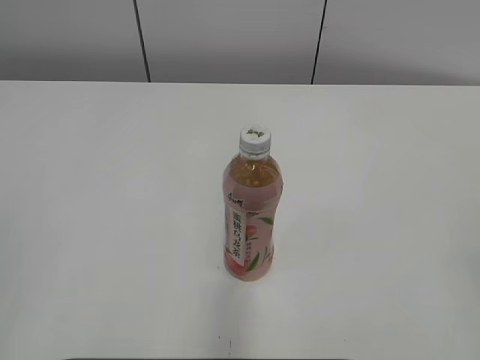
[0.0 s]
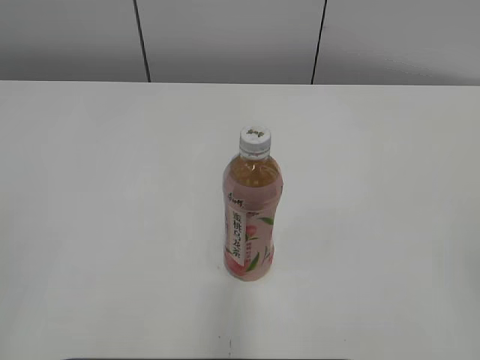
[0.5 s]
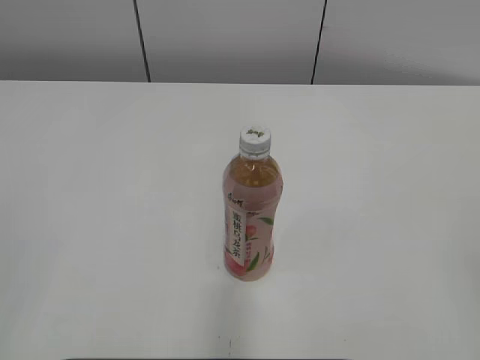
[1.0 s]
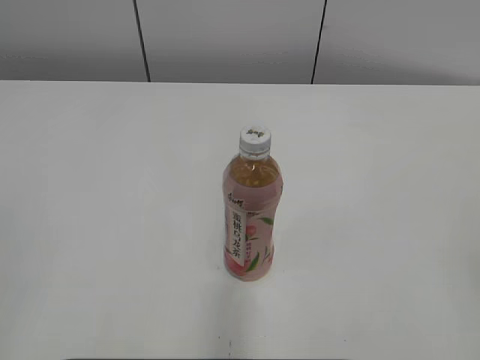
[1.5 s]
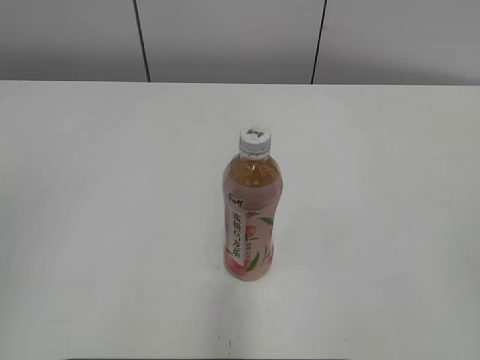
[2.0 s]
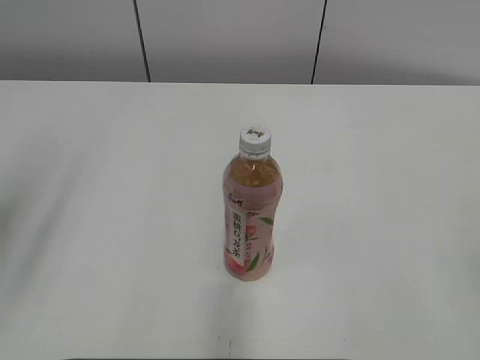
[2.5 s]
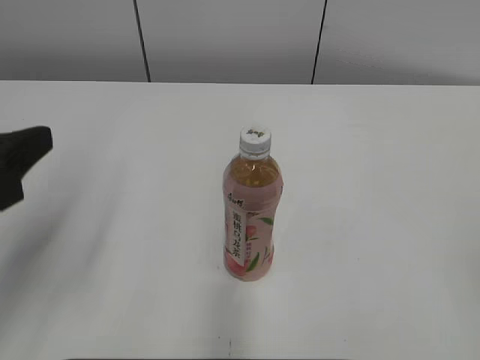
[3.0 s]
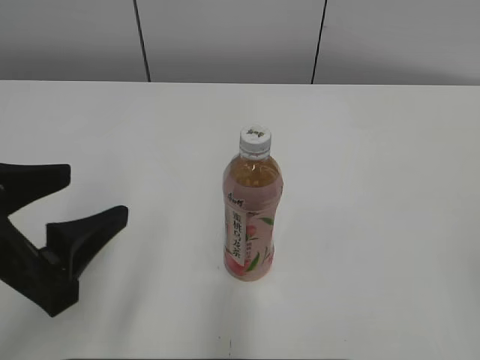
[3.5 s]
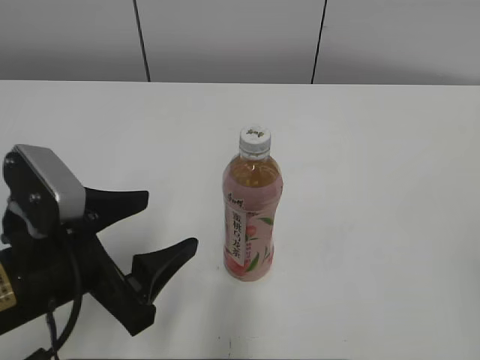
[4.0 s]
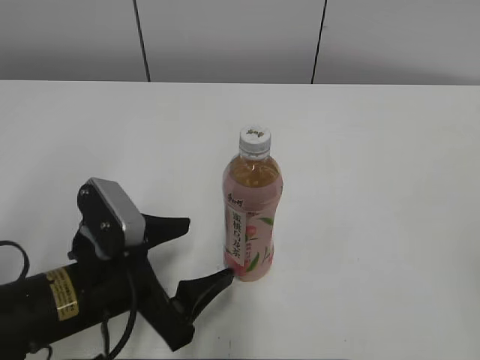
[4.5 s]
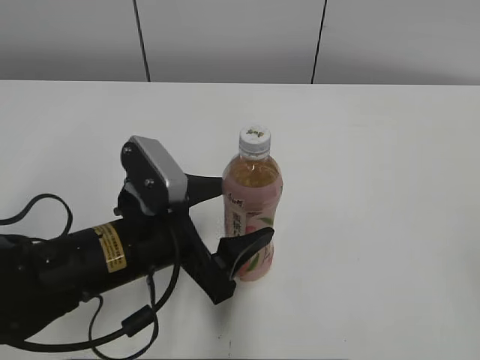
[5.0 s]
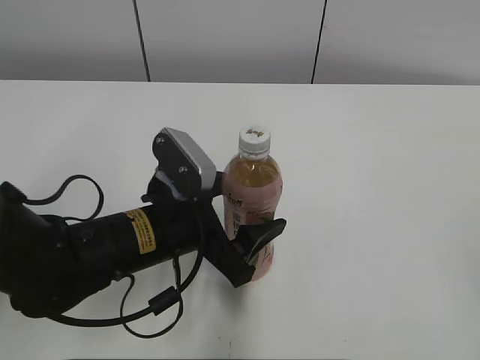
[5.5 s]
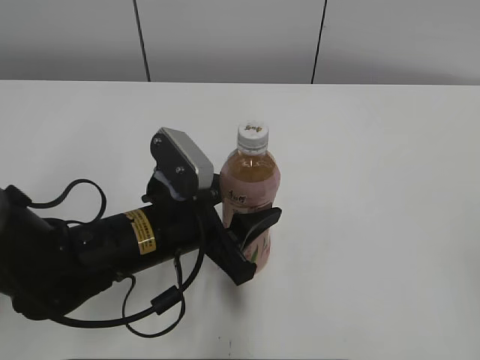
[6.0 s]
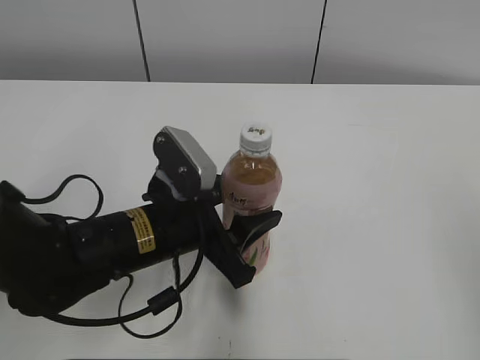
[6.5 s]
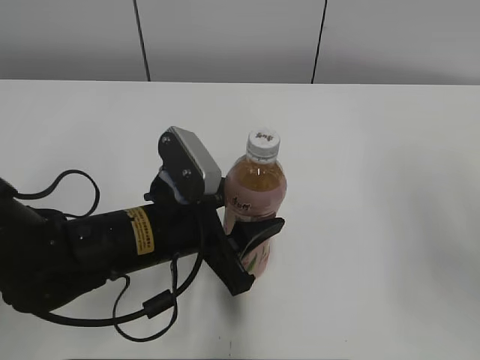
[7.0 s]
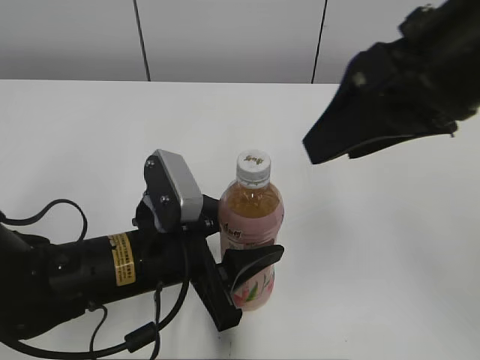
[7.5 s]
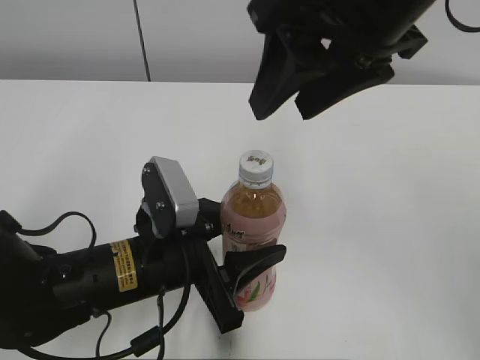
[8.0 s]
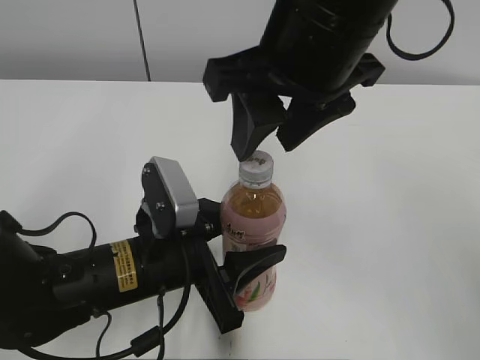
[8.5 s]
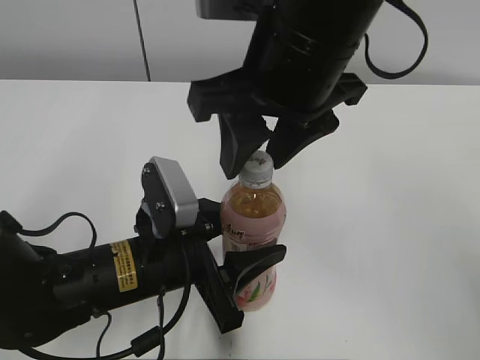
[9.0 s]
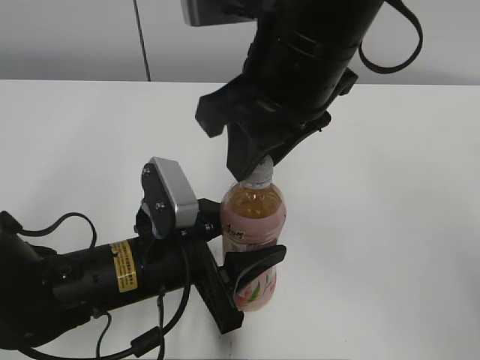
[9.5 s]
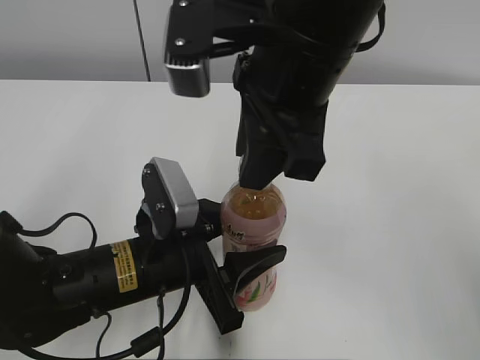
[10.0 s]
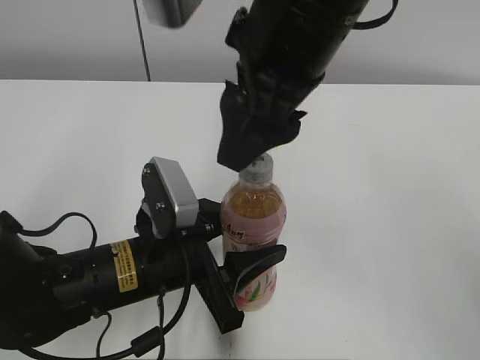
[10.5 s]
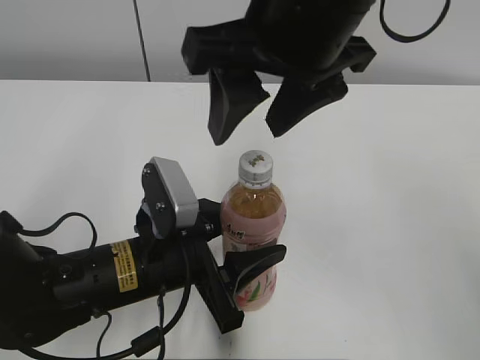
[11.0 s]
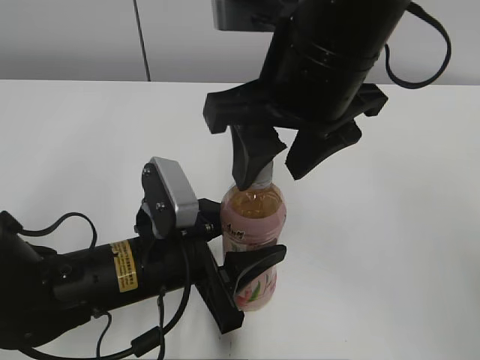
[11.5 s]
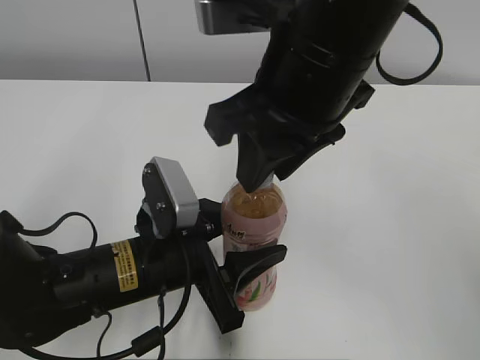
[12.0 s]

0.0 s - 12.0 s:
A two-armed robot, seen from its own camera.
Step, 0.0 s - 5.5 s: Grab the Peach Oolong Tea with the left hand.
Step, 6.0 s - 9.0 s: Move the Peach Oolong Tea from left to right.
2.0 s - 4.0 s: The left gripper travels downward, to the right and forward by roughly 25 cm, and opens up.
4.0 s - 6.0 s: The left gripper heads to the right and forward, covering roughly 10 cm, and closes its fingers.
6.0 s - 8.0 s: The right gripper is displaced forward and to the left by roughly 35 cm.
8.0 s - 10.0 s: The right gripper changes place by roughly 5 cm, and closes up.
10.0 s - 12.0 s: The right gripper opens, then closes once more.

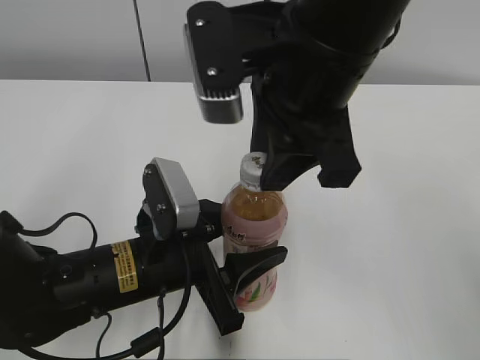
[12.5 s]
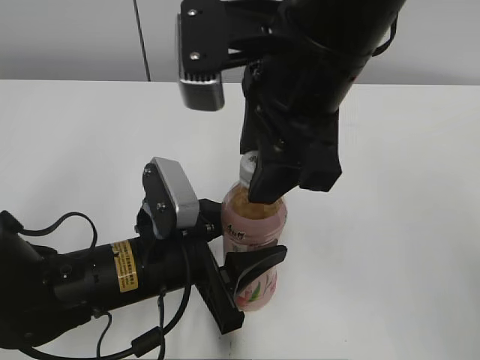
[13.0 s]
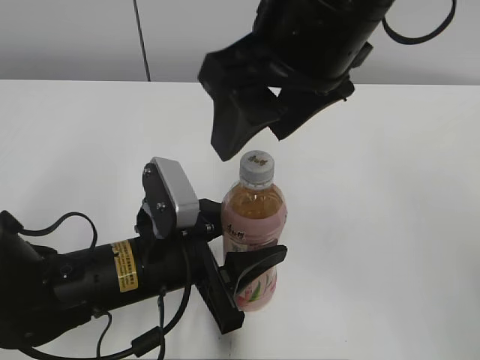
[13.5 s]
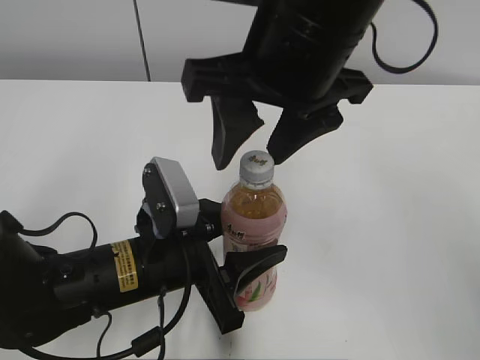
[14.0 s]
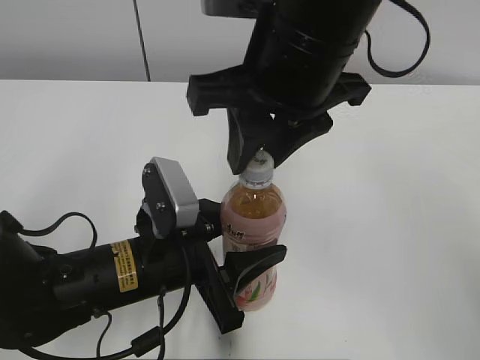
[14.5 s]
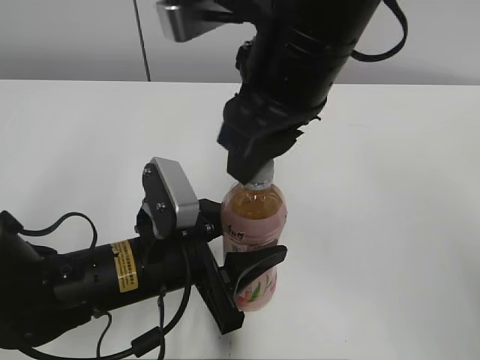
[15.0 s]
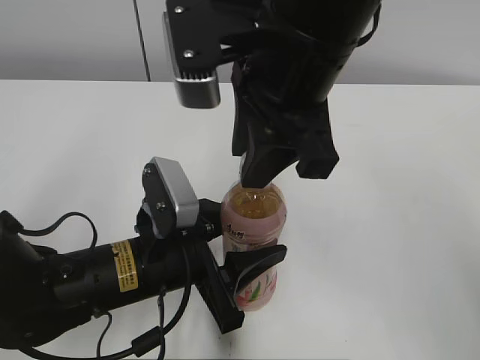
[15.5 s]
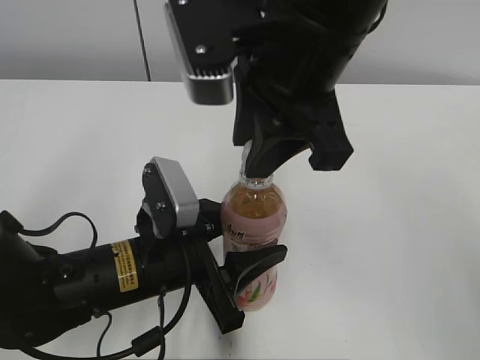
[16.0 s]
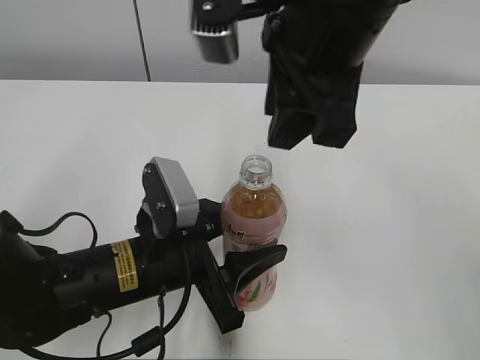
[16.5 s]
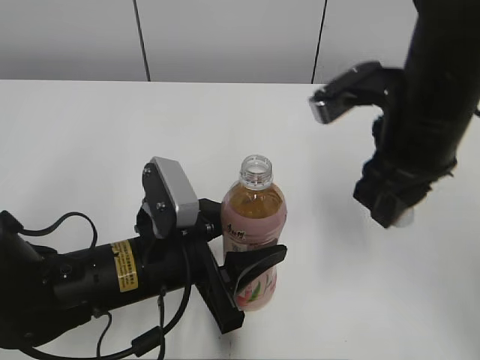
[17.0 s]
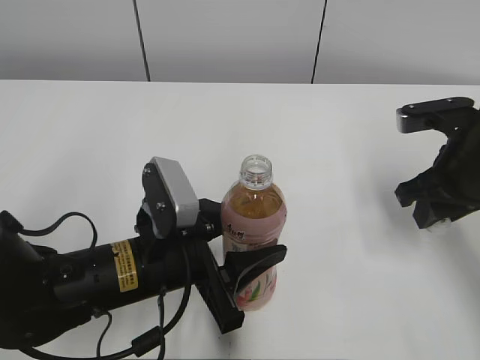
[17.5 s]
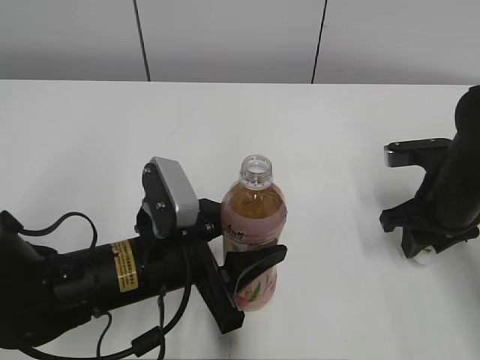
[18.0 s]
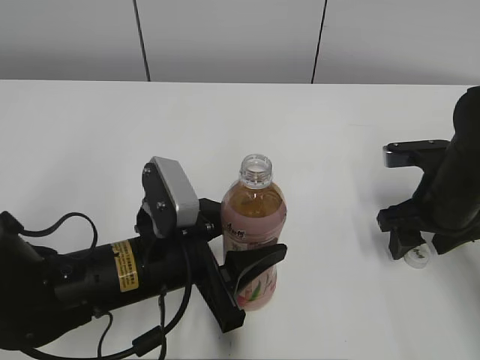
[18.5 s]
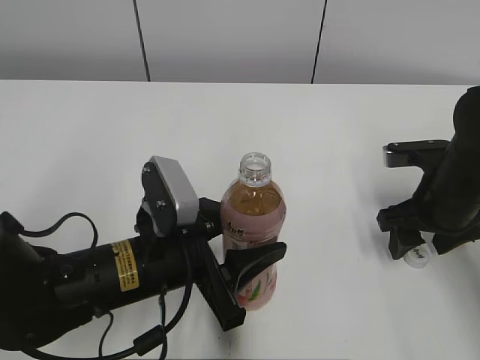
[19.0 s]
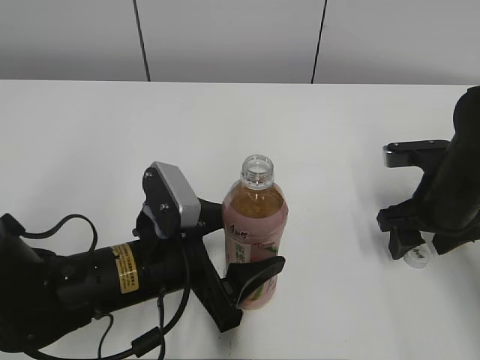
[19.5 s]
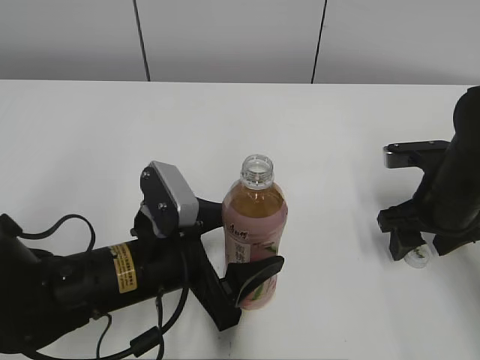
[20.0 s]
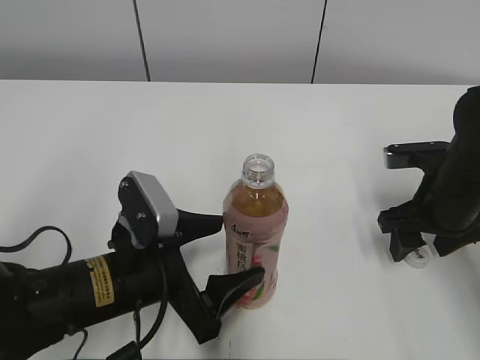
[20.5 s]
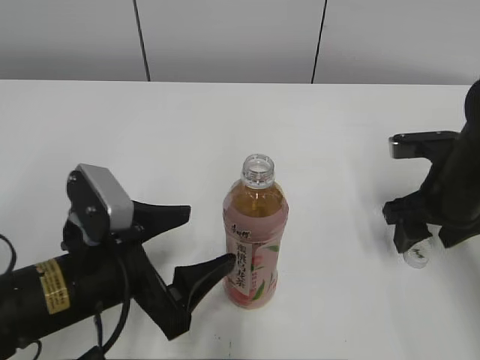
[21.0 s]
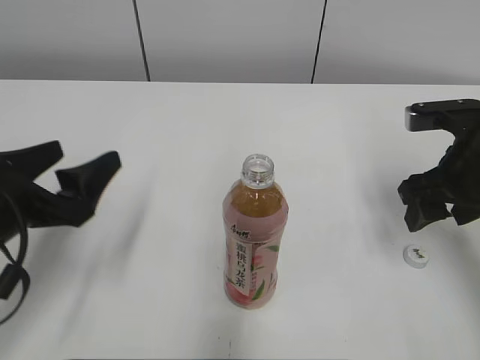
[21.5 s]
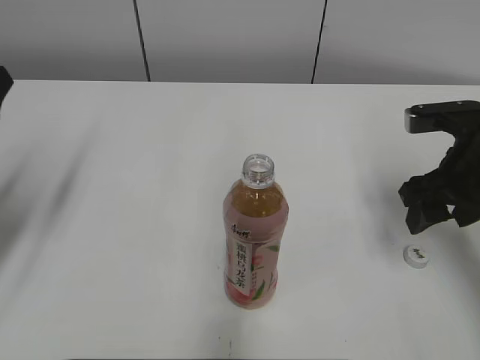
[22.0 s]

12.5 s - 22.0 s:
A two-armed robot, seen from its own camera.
Step, 16.5 s - 18.0 s: Place the bottle cap on the right.
12.5 s - 14.5 s: The right gripper opens and closes again.
16.5 s - 18.0 s: The right gripper moves downward and to the right, some 30 cm.
18.0 s - 20.0 s: The left gripper opens its fingers. Meanwhile the right gripper opens.
20.0 s - 22.0 s: The right gripper is displaced upward by roughly 5 cm. Meanwhile the left gripper goes roughly 25 cm to the left and upward.

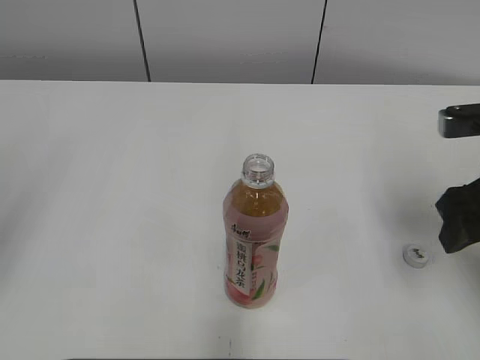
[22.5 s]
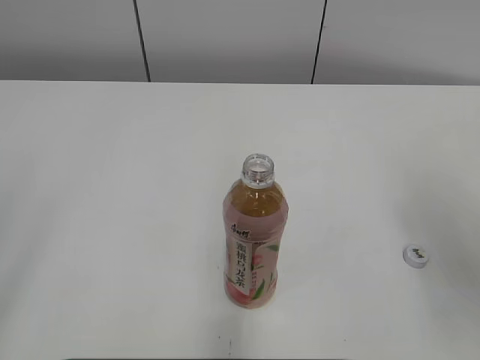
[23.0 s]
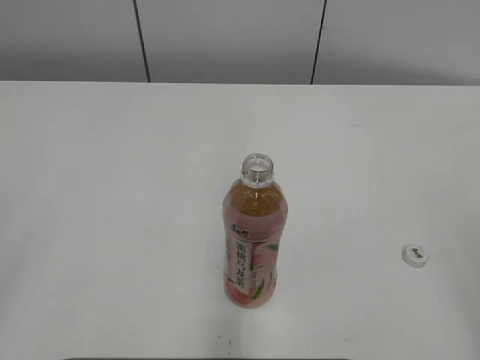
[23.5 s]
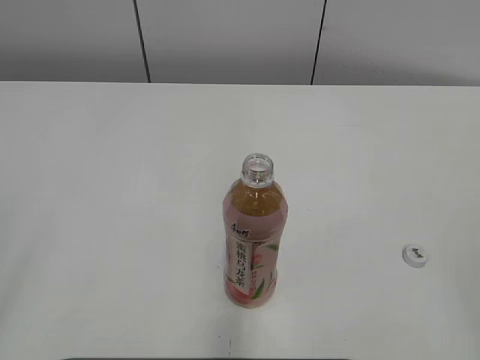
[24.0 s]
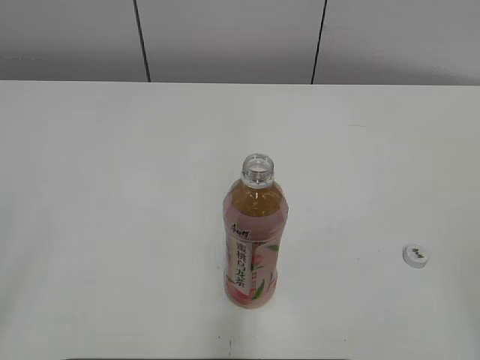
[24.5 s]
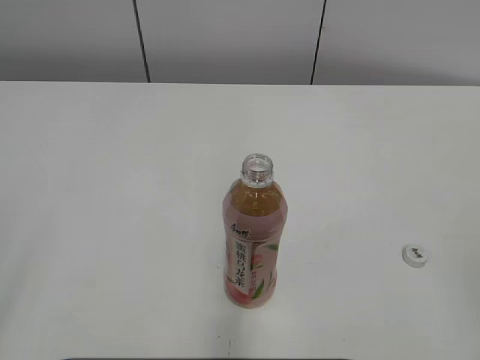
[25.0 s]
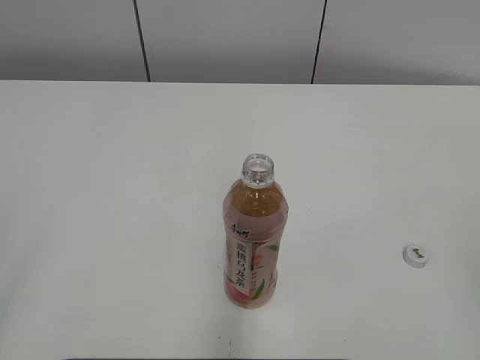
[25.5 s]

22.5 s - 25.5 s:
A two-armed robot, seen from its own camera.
22.5 s - 24.0 s: The right gripper moves backward, roughly 25 cm.
